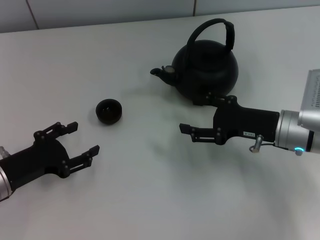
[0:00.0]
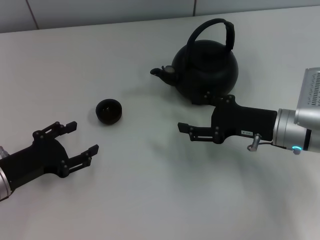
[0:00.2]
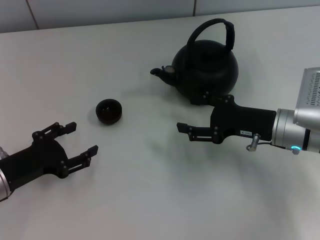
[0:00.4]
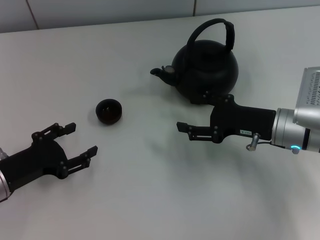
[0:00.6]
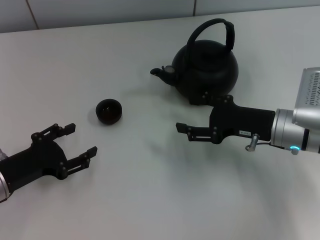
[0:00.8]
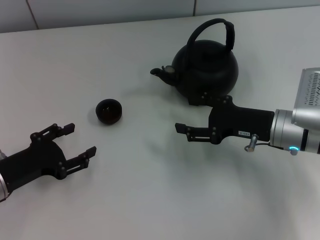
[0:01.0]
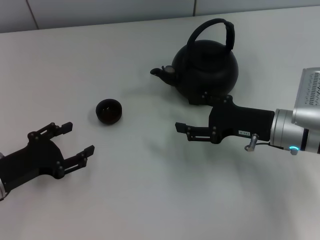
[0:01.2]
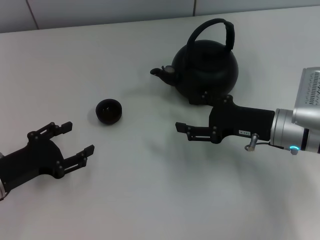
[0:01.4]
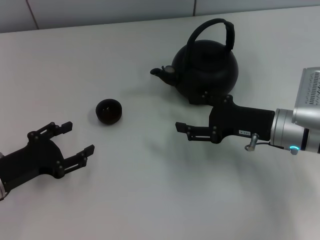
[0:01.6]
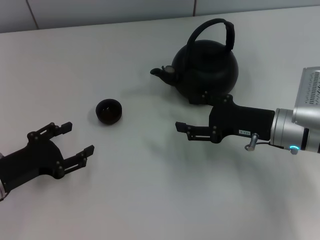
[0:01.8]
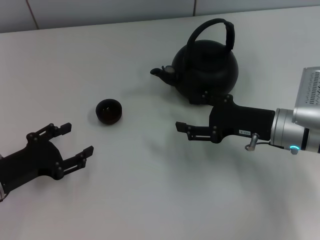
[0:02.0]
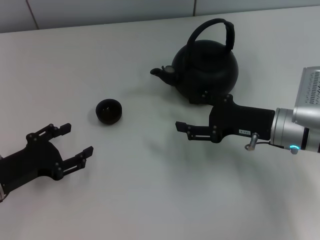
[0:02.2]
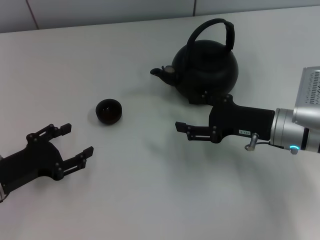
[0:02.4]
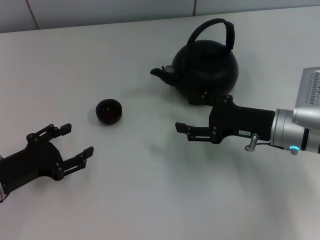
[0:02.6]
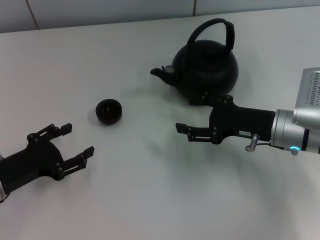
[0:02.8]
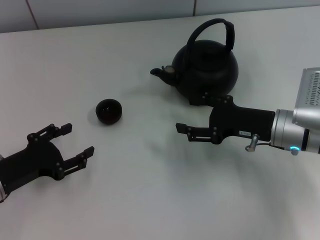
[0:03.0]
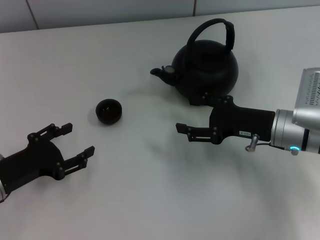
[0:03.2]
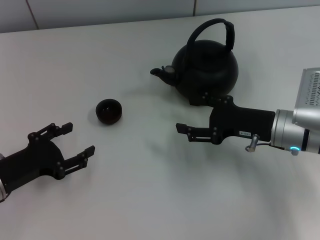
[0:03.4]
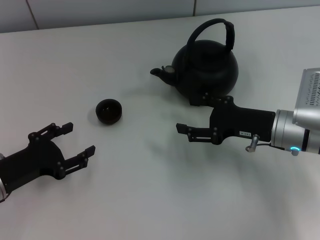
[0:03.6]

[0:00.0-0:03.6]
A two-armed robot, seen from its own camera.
Task of the whole recording: Grasp the handle of the teapot with one hand and pour tea into the teacup.
0:00.0 to 0:03.6: The two grippers keep their place.
